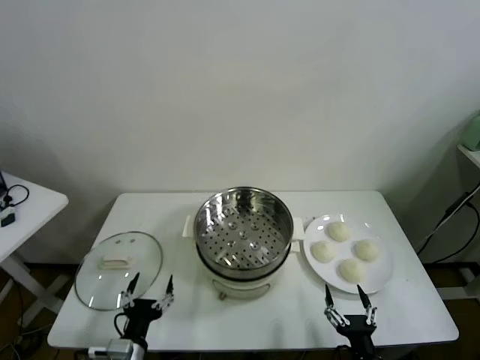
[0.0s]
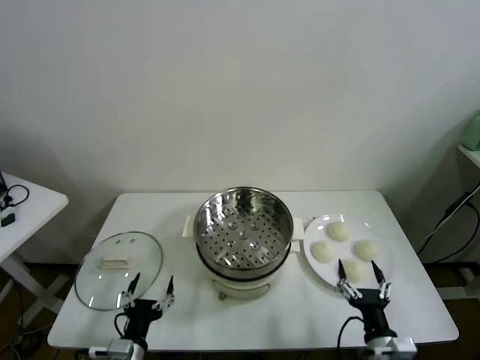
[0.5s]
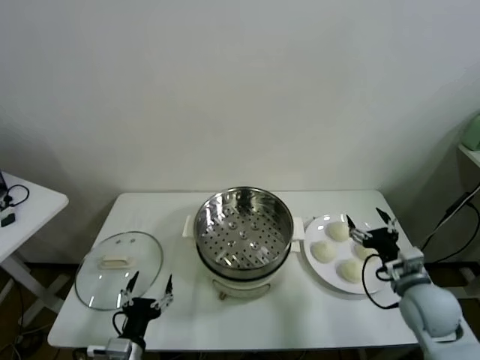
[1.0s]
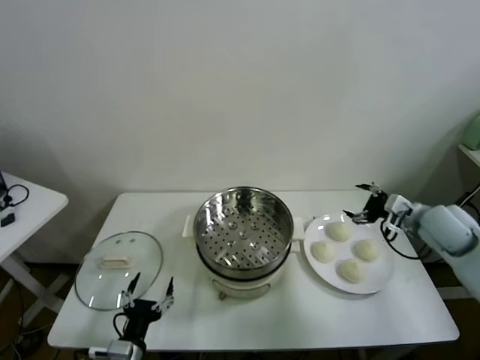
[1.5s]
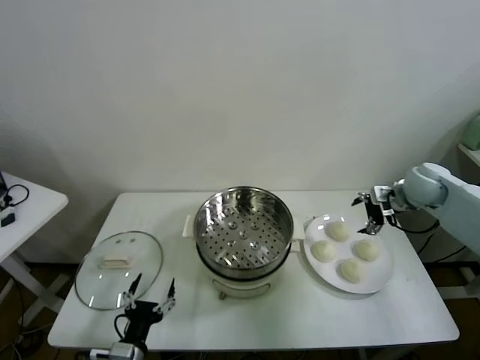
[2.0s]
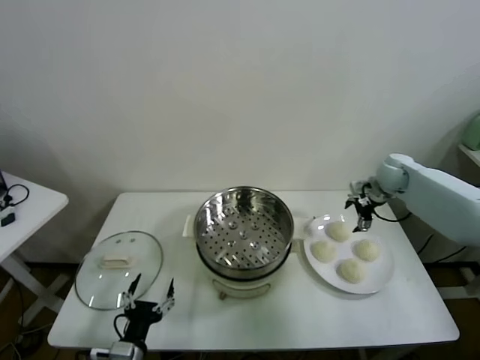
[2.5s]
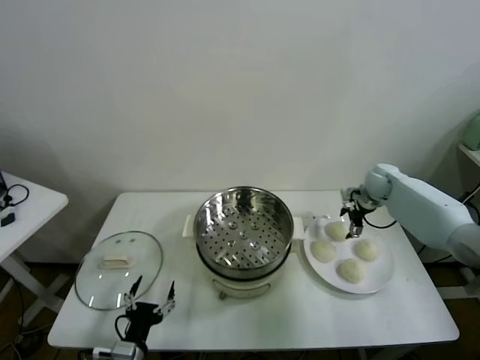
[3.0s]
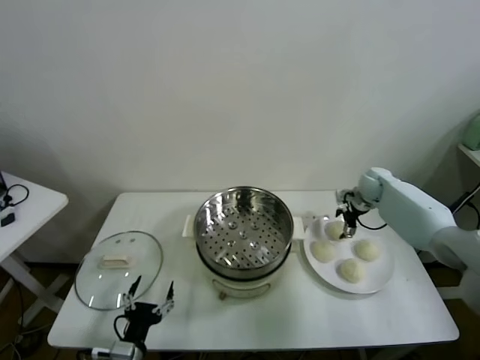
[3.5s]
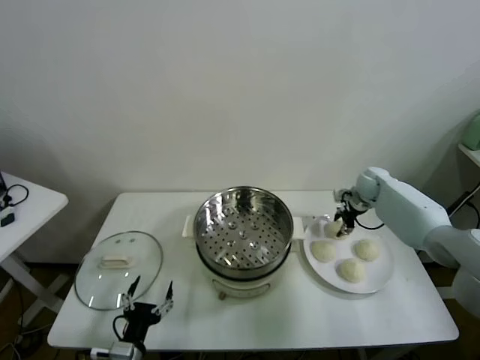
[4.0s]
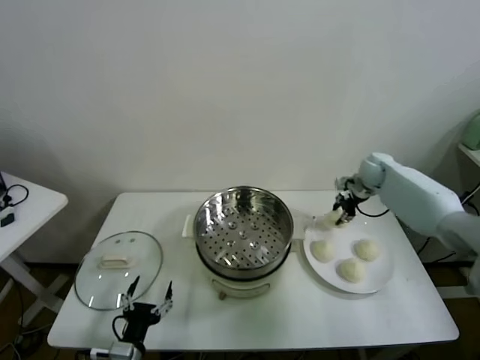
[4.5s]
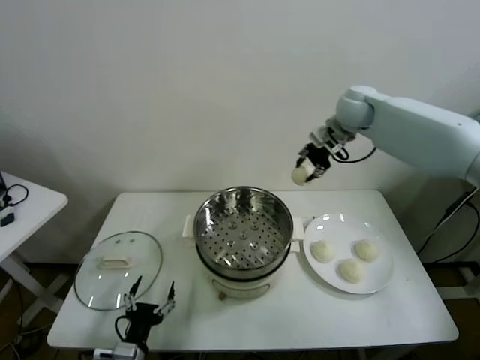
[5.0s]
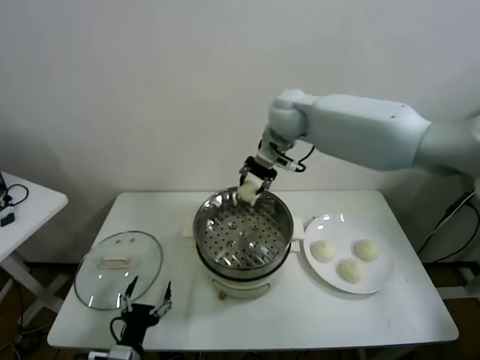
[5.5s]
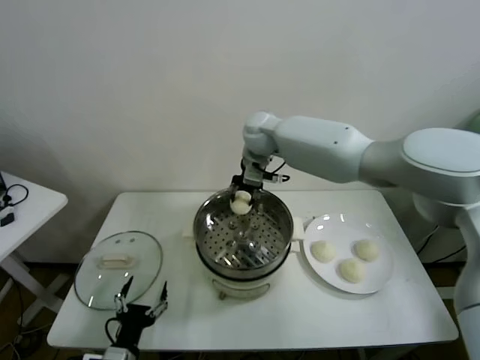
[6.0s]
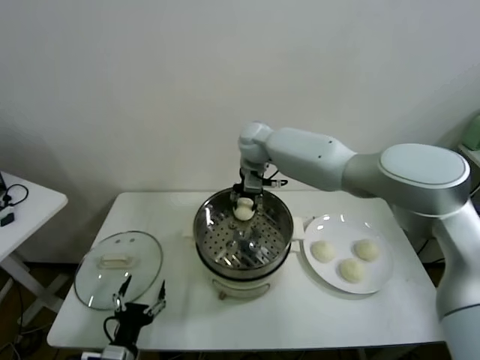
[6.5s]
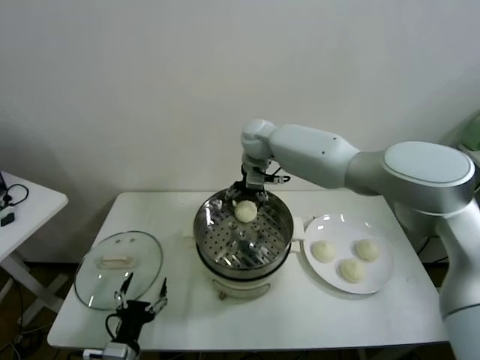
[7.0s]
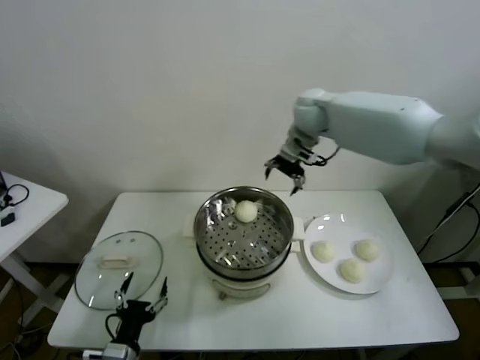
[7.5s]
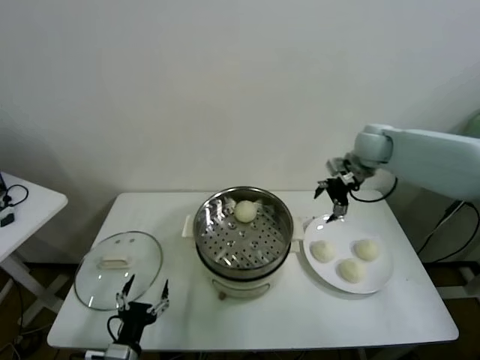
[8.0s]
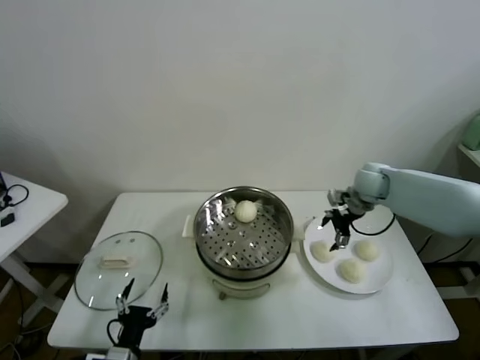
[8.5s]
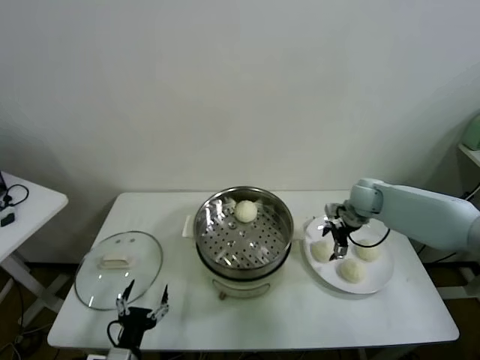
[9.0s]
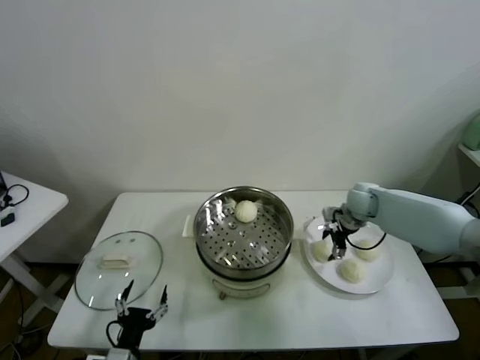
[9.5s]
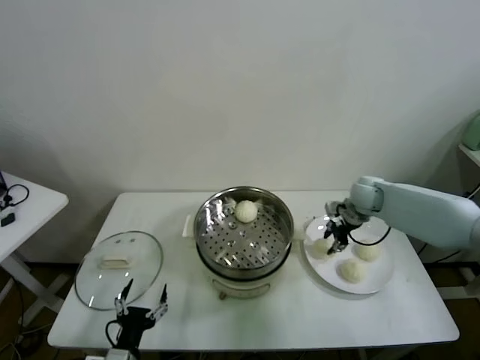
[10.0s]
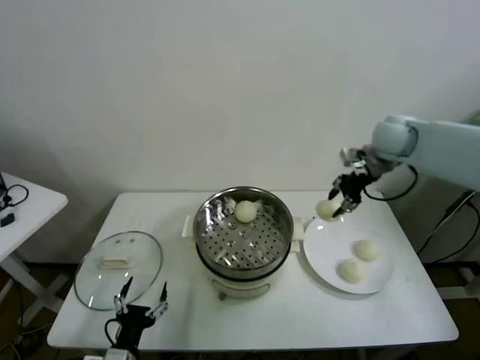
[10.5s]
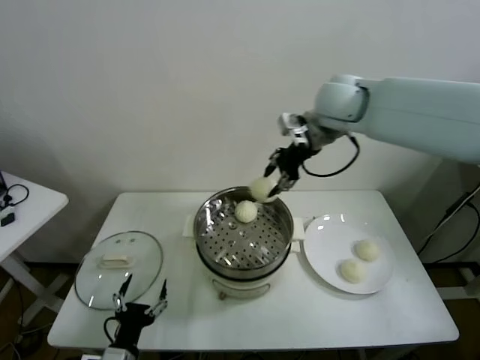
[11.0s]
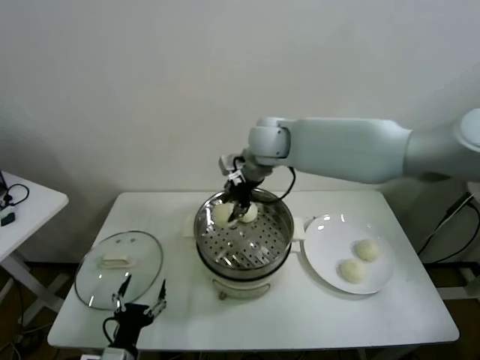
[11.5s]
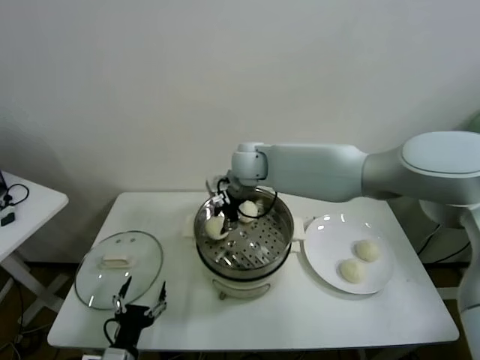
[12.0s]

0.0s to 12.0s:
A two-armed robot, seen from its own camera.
Task of the whole recording: take steamed baozi put them in steamer.
Step, 0.0s to 3.5s: Grasp the baozi in the plate with right gripper.
Step, 4.5s to 6.5s: Place the baozi on the steamer with right gripper.
Step, 7.0s to 9.5s: Grasp the baozi in the plate with right gripper.
2.0s to 4.0s: The right gripper goes approximately 15 cm downward and forward, and closes.
4.0s to 6.0s: The right gripper goes about 40 cm to the left and upward.
6.0s to 8.0s: The right gripper heads to the right, covering some 25 cm, and opens its fingers.
8.0s to 10.0s: The right gripper heads downward, covering approximately 10 cm, and closes up.
10.0s to 12.0s: The right gripper goes roughly 30 cm to the left.

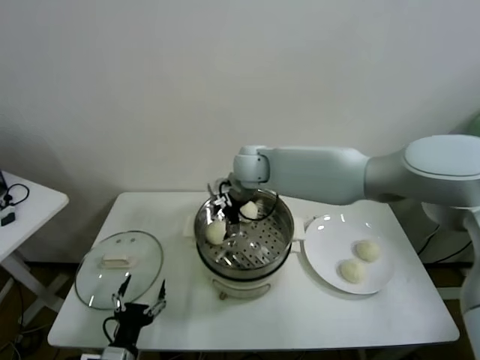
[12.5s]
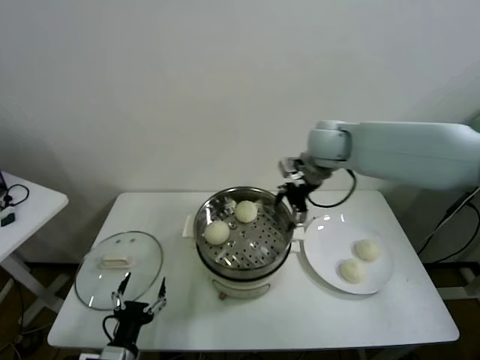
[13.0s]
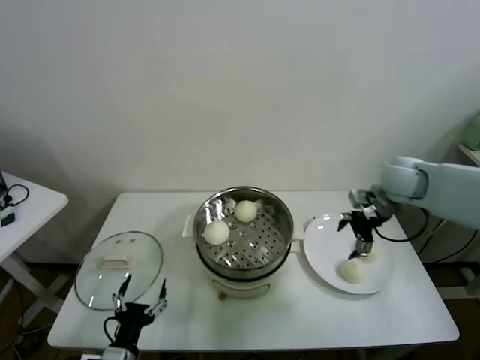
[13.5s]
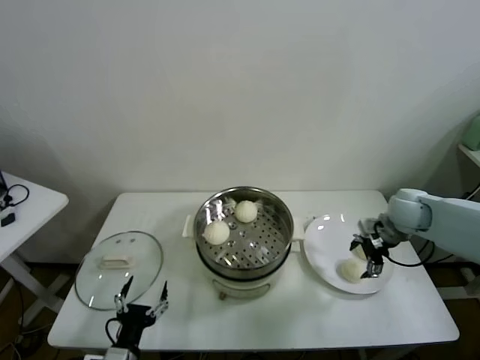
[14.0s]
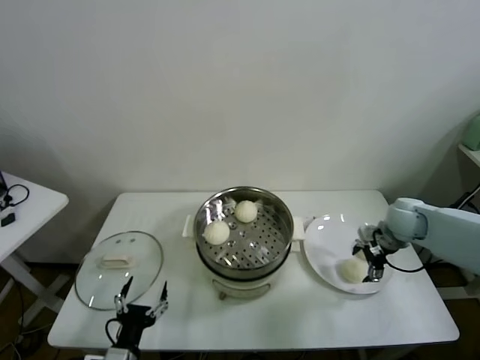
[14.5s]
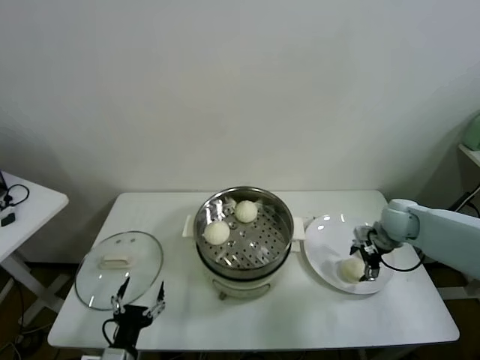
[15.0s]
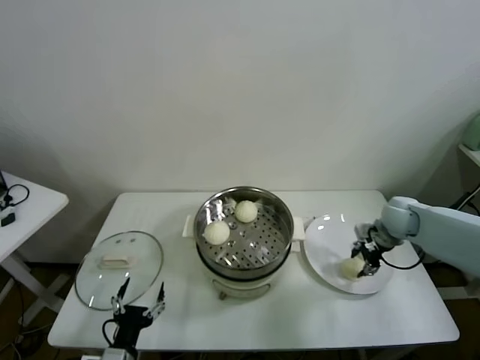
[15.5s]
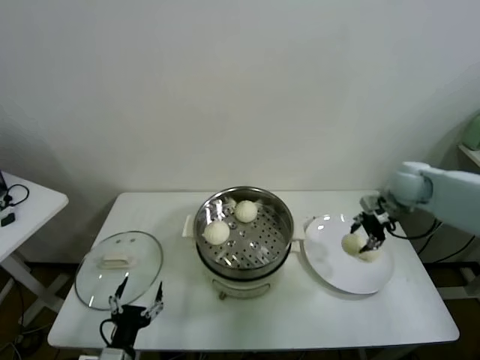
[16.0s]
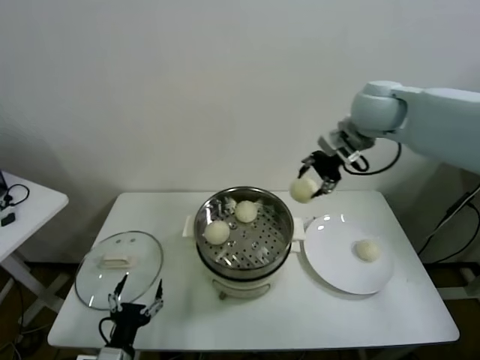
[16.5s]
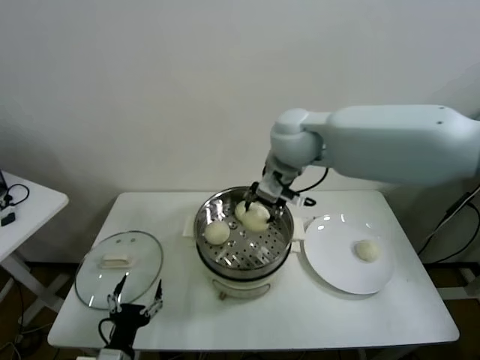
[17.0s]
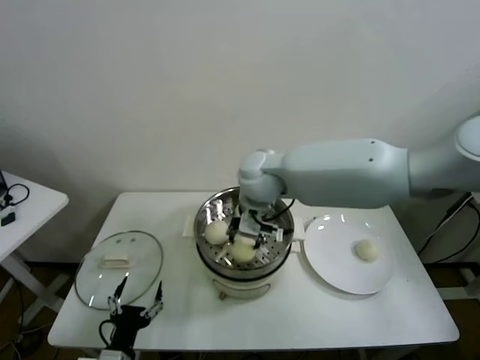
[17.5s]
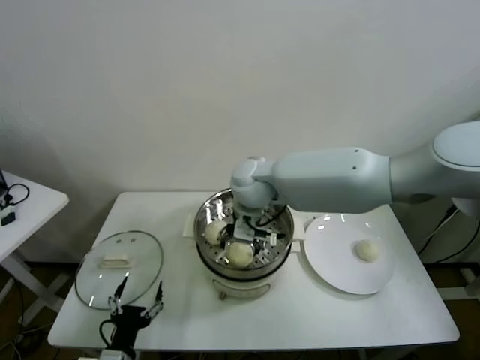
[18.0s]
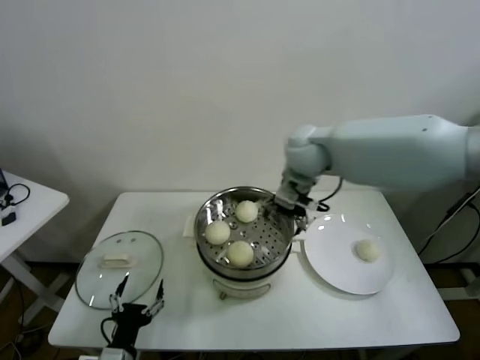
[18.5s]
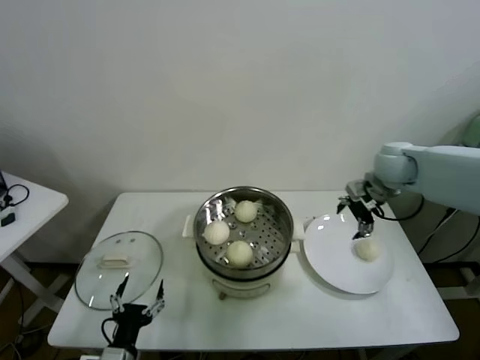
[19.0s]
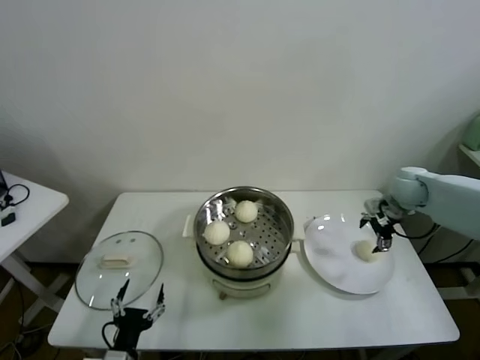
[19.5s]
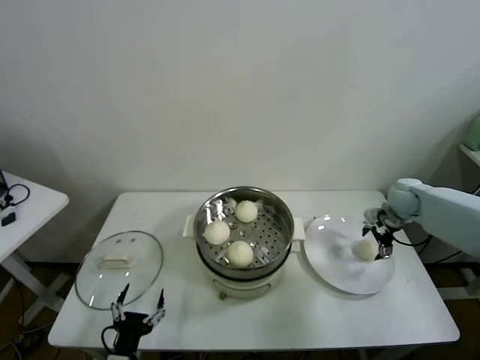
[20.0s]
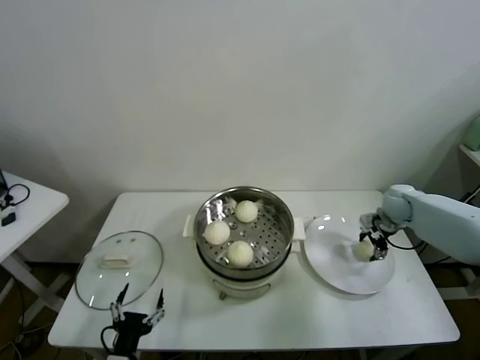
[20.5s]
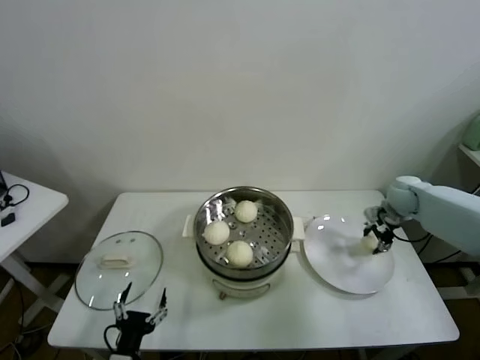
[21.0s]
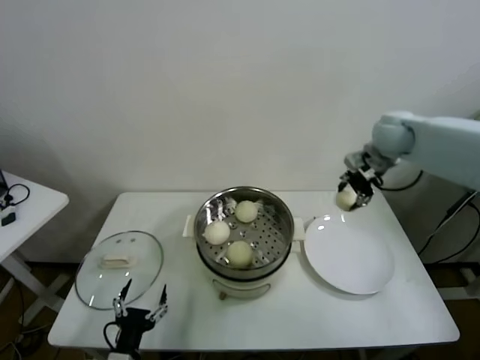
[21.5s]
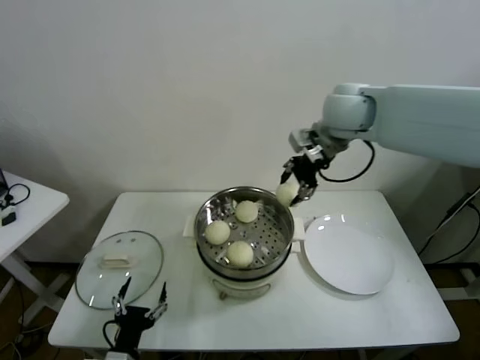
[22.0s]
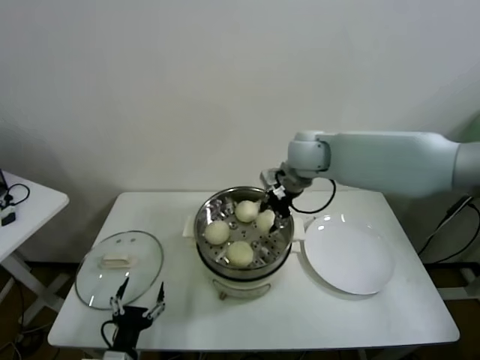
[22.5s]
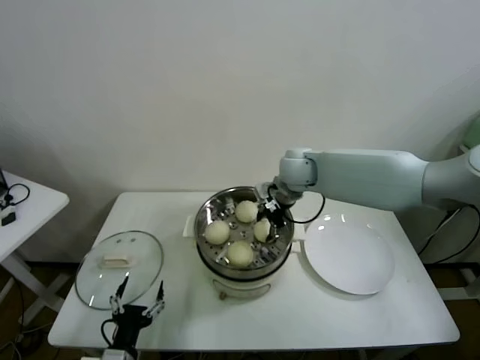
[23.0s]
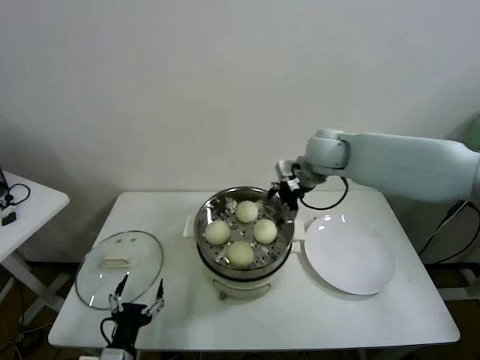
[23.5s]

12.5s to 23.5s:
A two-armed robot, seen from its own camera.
Task of the whole recording: take steamed baozi put them in steamer.
Step, 12.5s to 15.0s: Grasp the baozi in the plate with right gripper.
Step, 15.5s to 17.5s: Place the baozi on the steamer with right gripper.
Step, 18.0s to 20.5s: Grasp the baozi in the plate with right gripper.
Step, 21.0s to 23.0s: Place the baozi on the steamer with right gripper.
12.5s to 14.5s: The right gripper travels to the right by some 35 cm.
14.5s to 16.0s: The right gripper heads upward, covering approximately 10 cm, and closes its fingers.
16.0s to 18.0s: The right gripper travels to the left by roughly 35 cm, and opens up.
18.0s to 20.0s: The right gripper shifts about 40 cm to the right.
20.0s to 21.5s: The right gripper is displaced upward and to the left by about 20 cm, and closes its fingers.
21.5s to 23.5s: The right gripper moves to the left, roughly 15 cm, and opens its fingers.

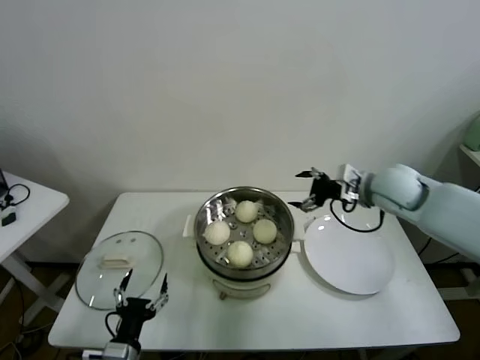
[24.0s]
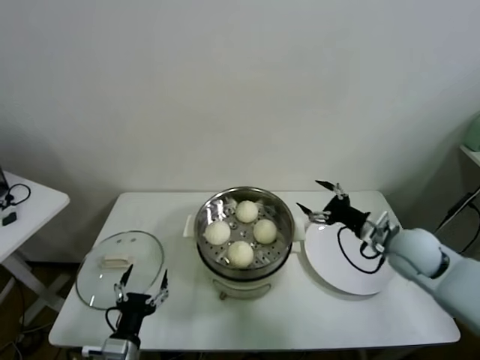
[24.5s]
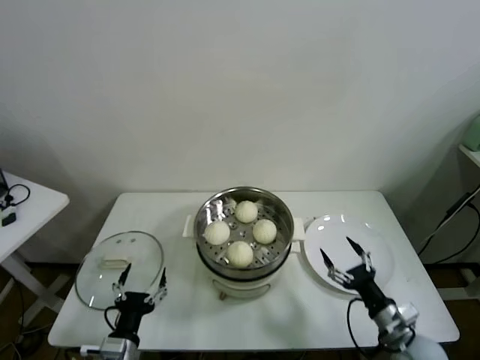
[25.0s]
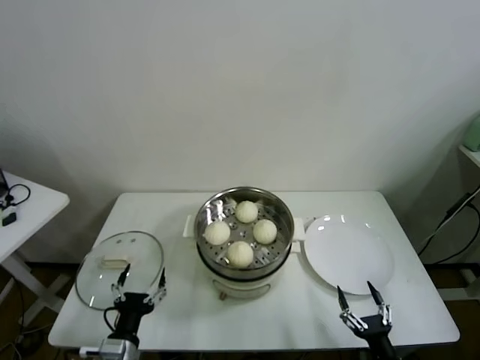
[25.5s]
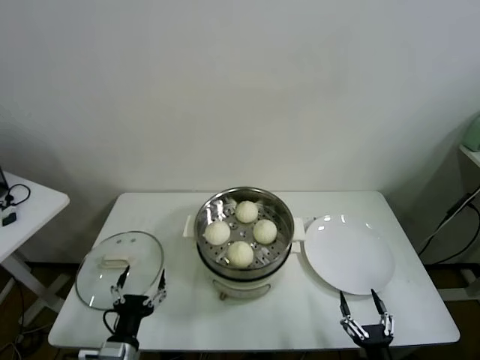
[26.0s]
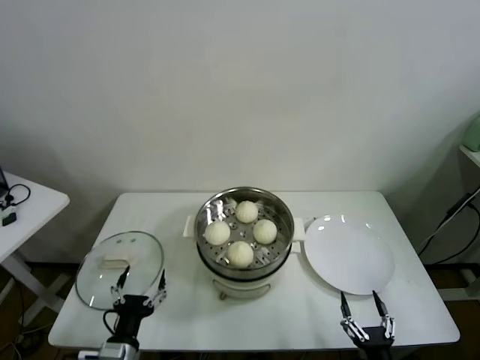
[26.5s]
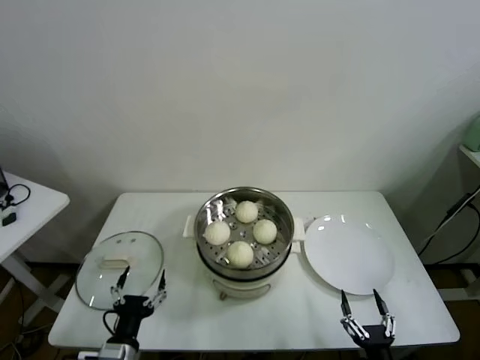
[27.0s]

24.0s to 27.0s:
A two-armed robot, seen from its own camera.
Task of the whole recording: take steamed baozi put them in steamer.
24.0s to 25.5s: The right gripper is displaced backward and downward by about 50 cm.
25.5s to 27.0s: The grippers stay close to where they were, moving slightly.
